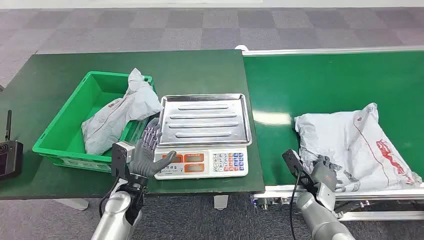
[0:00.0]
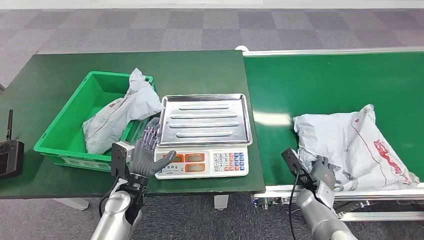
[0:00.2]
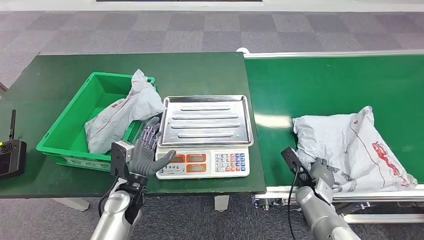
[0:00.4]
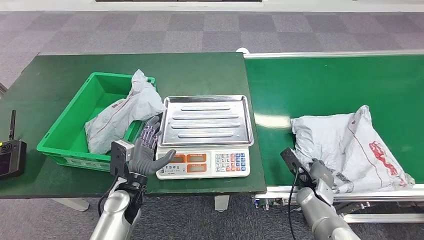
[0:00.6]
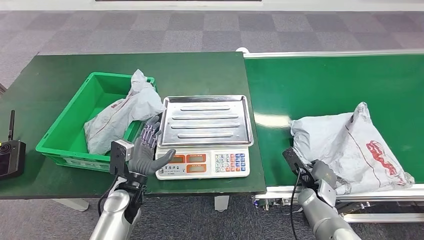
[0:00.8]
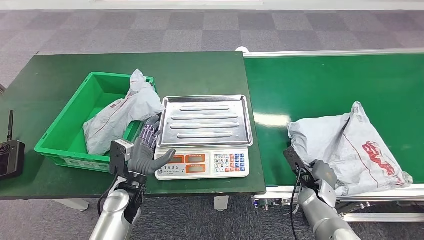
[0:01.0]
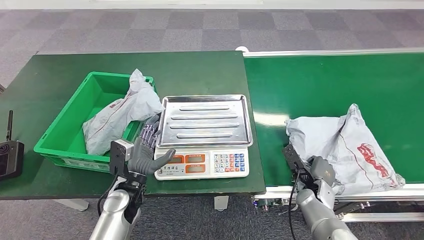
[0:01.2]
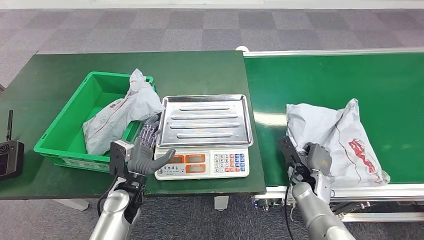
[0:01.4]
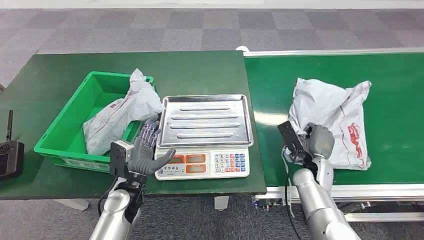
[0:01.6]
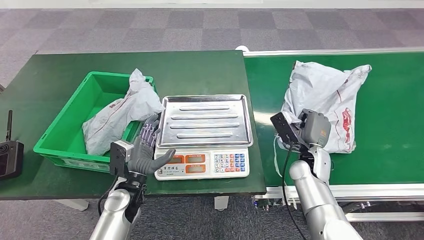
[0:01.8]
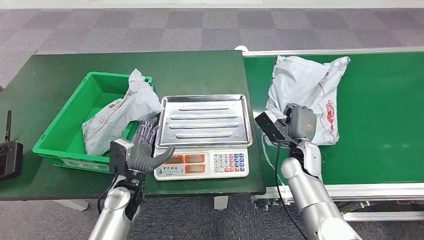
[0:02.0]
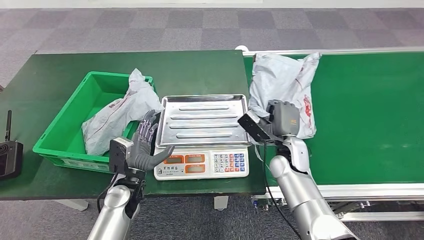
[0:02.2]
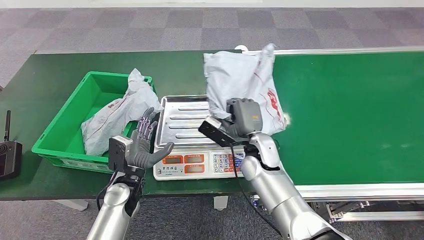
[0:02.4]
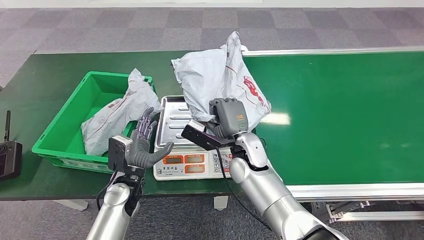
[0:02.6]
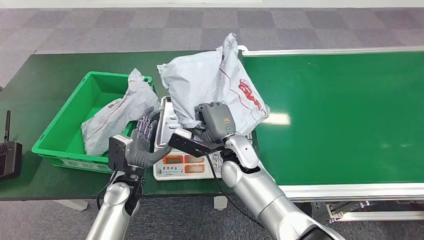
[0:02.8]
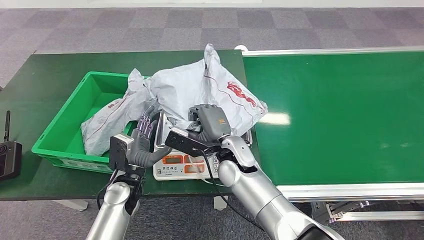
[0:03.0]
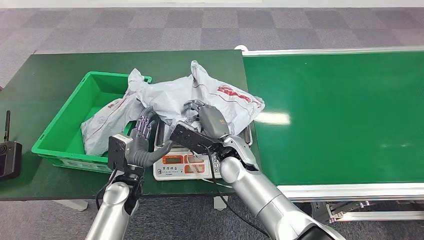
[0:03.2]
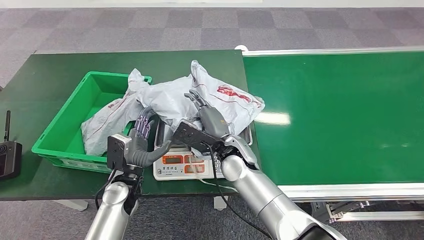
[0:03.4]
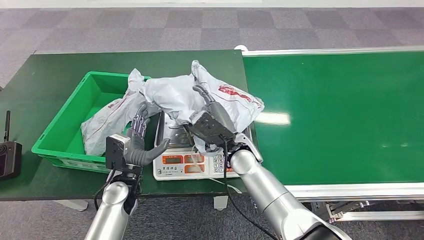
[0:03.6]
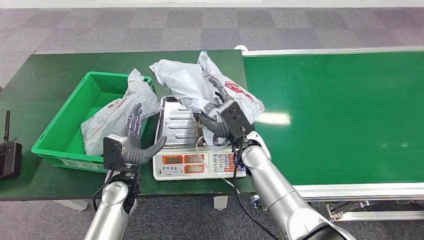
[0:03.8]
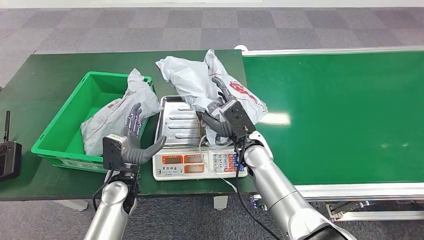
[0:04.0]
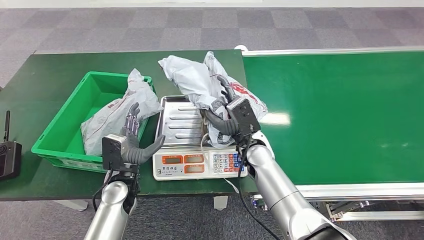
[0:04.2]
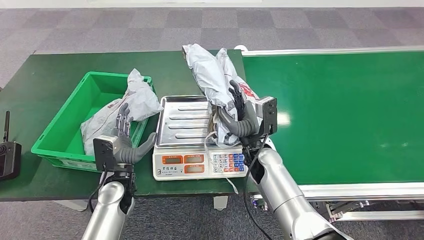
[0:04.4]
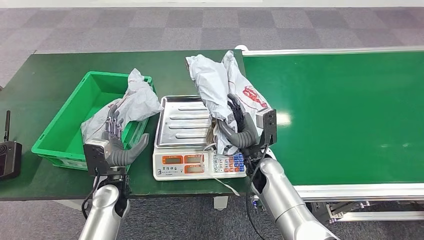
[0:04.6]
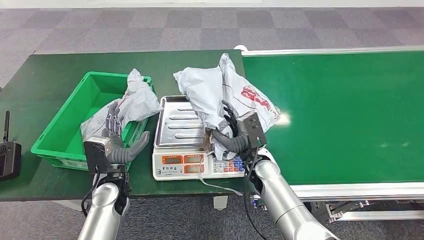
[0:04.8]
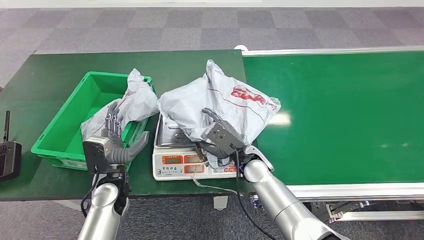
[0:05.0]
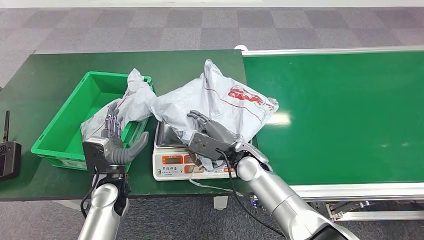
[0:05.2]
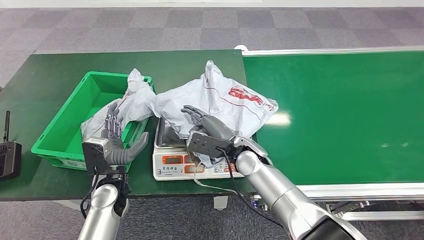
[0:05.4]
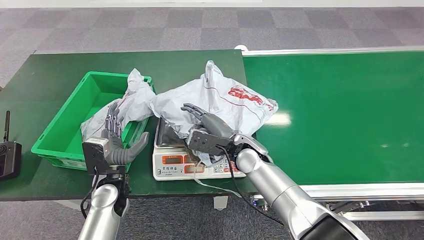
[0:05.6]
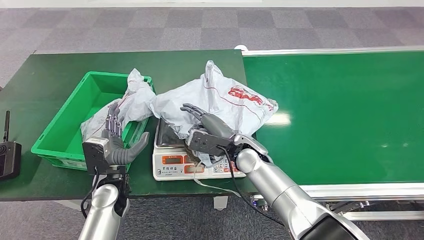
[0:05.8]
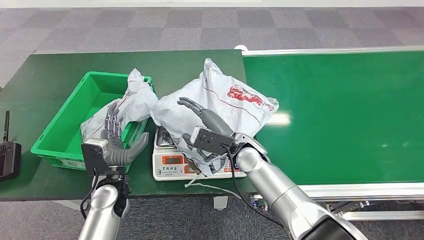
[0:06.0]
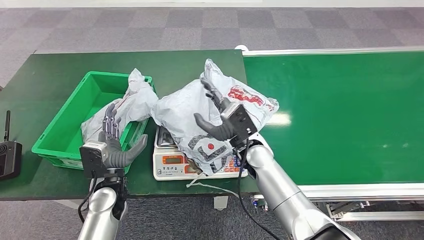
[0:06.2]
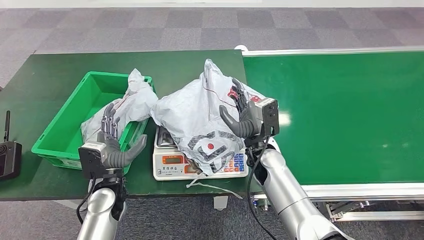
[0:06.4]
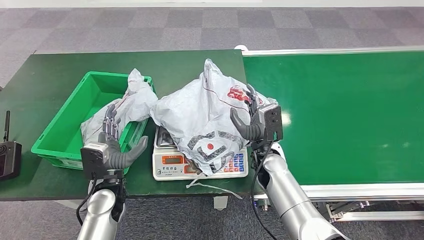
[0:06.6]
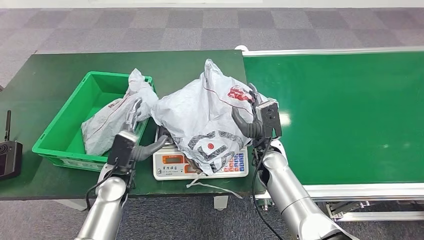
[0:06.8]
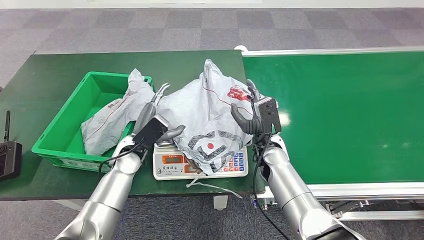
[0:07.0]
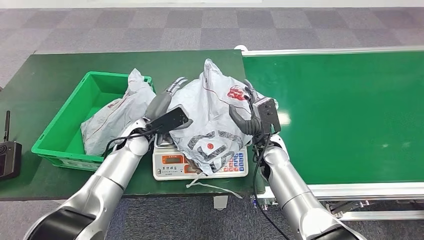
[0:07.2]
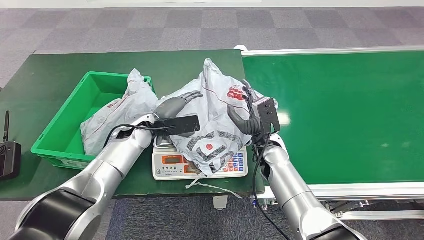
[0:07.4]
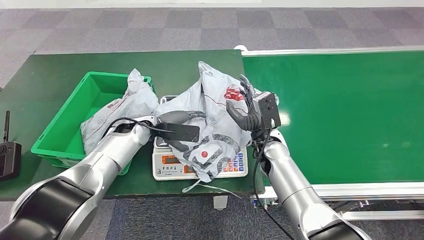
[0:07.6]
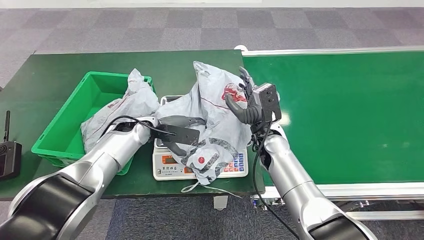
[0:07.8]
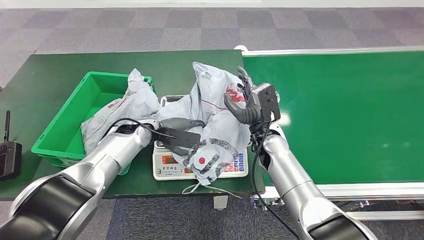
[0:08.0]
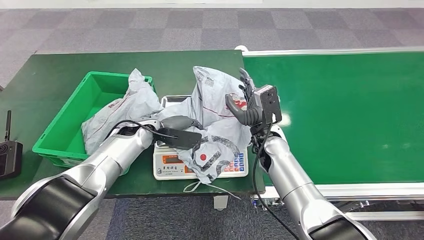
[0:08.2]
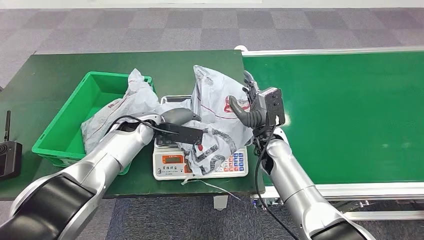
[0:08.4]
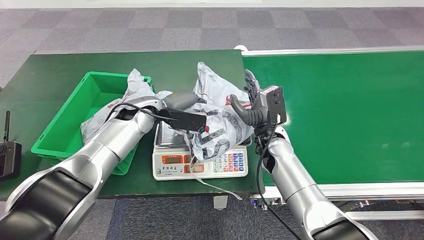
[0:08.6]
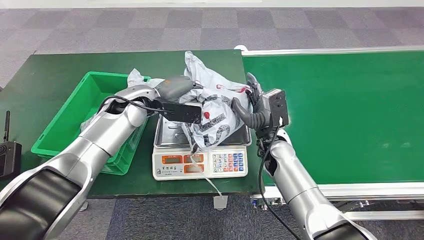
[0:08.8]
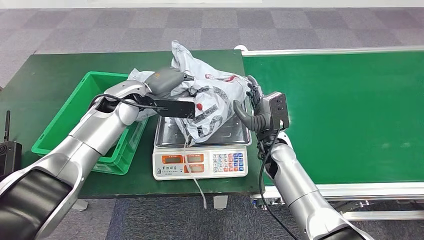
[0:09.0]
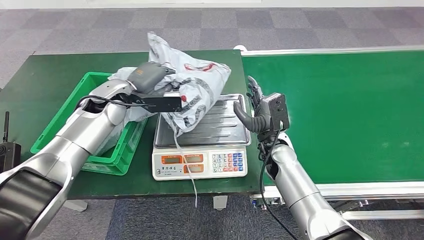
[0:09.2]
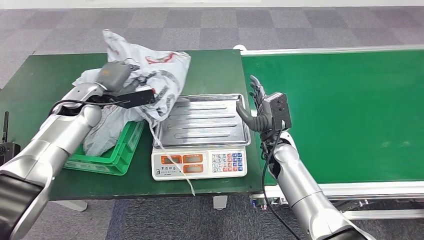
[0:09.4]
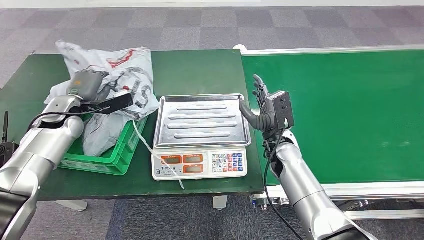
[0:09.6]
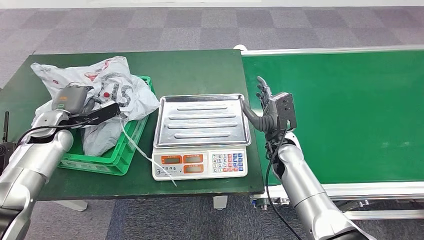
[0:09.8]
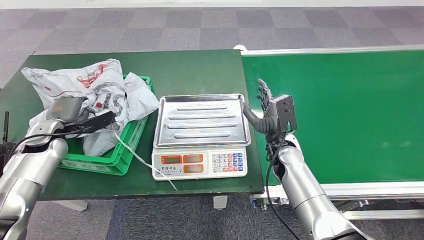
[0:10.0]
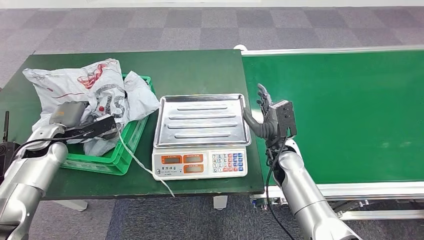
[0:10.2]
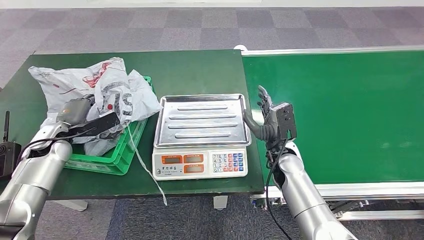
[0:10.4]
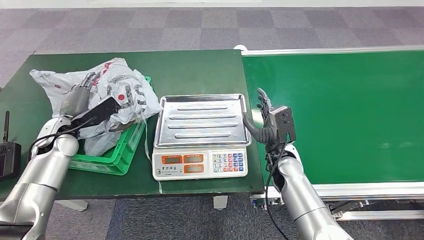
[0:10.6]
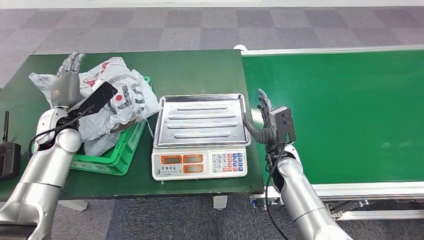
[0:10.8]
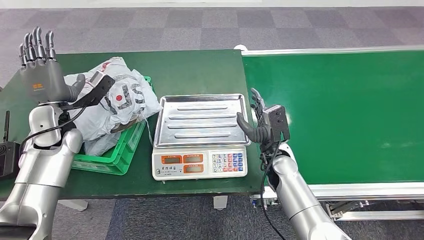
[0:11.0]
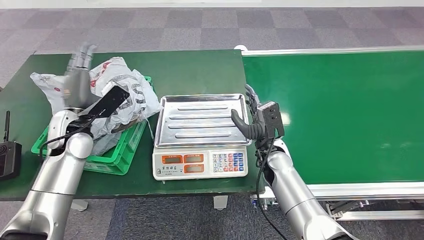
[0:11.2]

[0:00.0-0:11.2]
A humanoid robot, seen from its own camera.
Step, 0:00.0 to 0:02.2: Pick up the package from the conveyor belt.
Step, 0:02.6 to 0:07.2: Place the package onto the inbound machine.
Step, 0:07.4 to 0:09.2: Pick up the package from the inbound machine.
Step, 0:09.4 to 0:11.2: Place the package into the parcel locker.
0:03.2 to 0:04.8: The right hand moves to the right and downward, roughly 10 cm.
